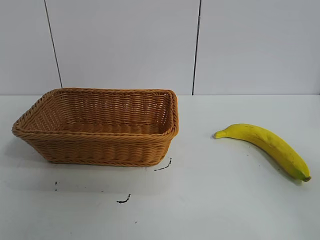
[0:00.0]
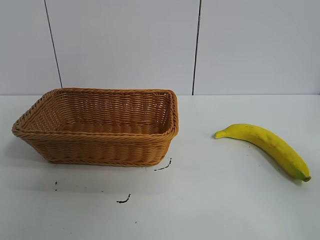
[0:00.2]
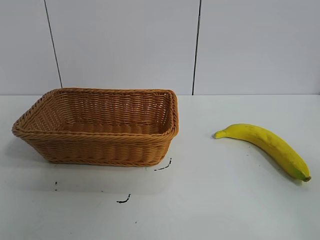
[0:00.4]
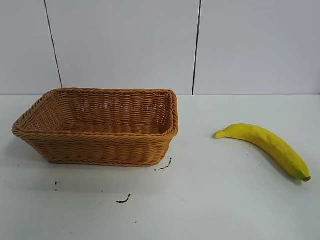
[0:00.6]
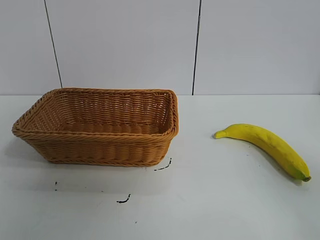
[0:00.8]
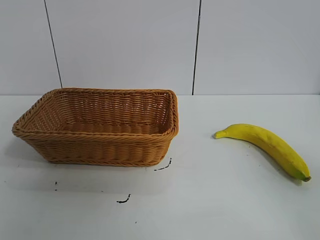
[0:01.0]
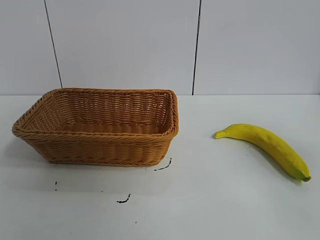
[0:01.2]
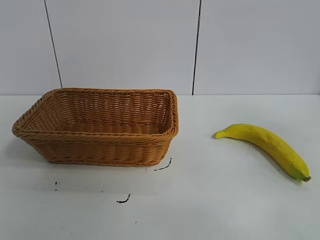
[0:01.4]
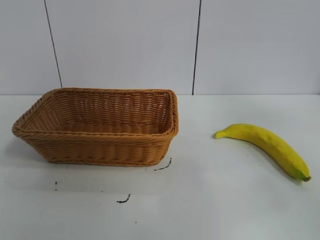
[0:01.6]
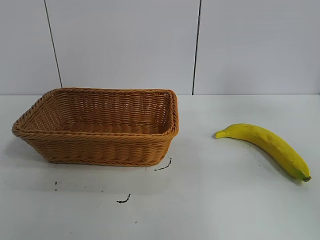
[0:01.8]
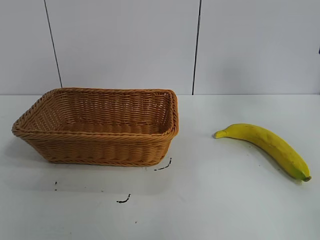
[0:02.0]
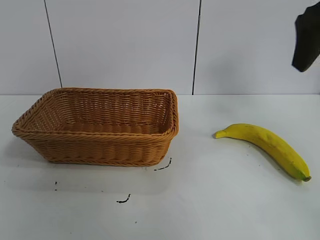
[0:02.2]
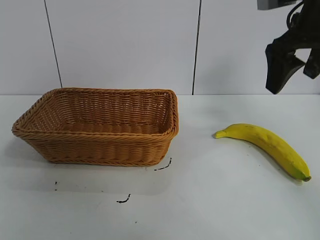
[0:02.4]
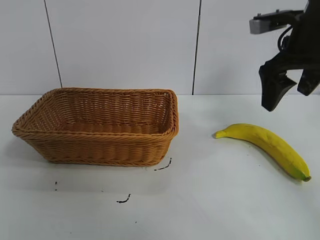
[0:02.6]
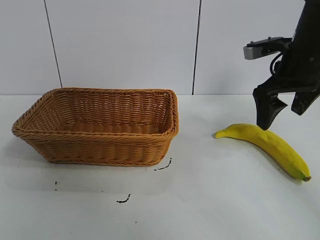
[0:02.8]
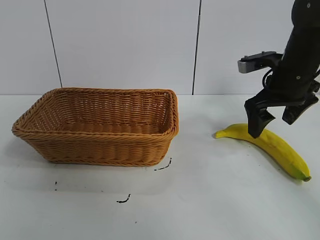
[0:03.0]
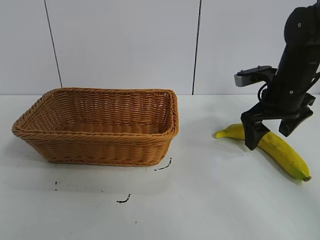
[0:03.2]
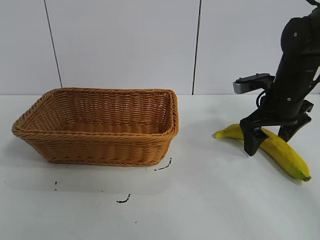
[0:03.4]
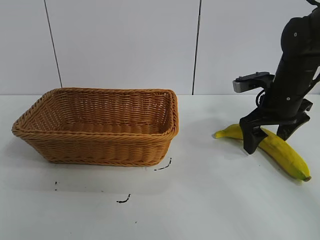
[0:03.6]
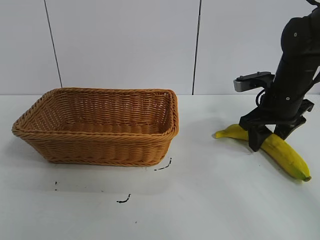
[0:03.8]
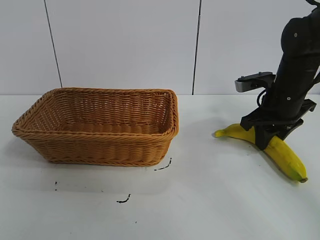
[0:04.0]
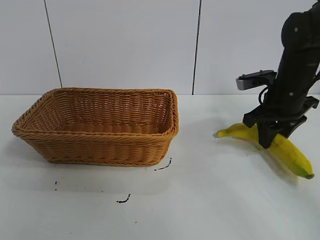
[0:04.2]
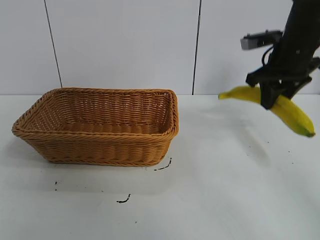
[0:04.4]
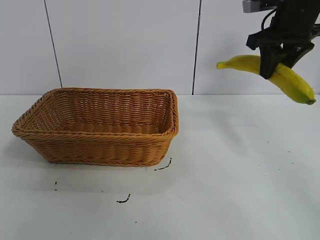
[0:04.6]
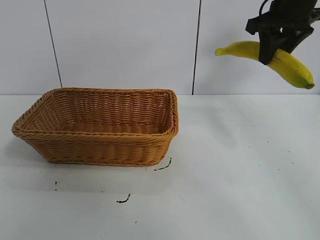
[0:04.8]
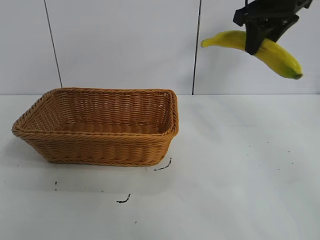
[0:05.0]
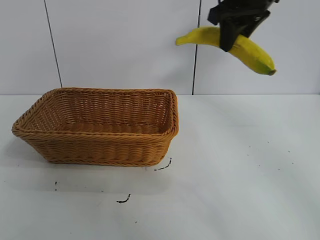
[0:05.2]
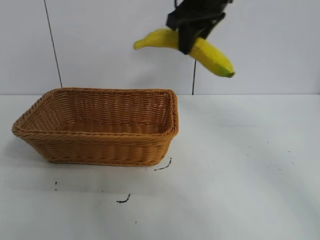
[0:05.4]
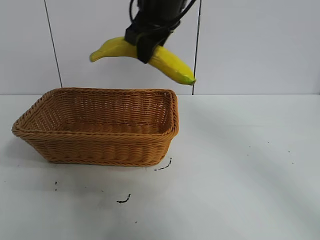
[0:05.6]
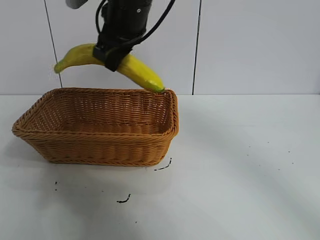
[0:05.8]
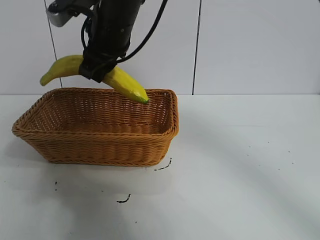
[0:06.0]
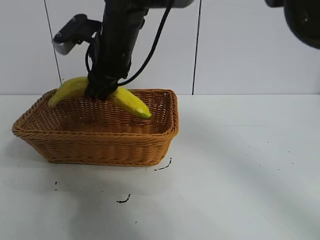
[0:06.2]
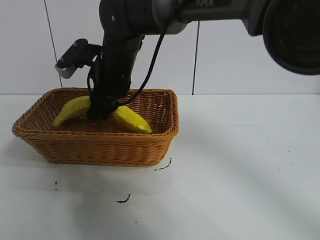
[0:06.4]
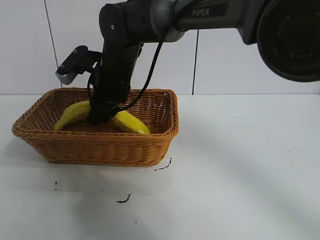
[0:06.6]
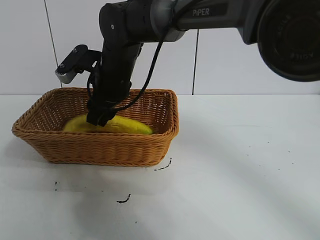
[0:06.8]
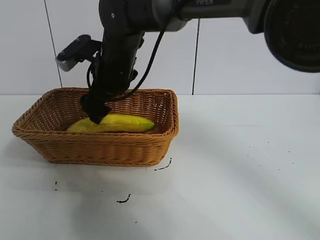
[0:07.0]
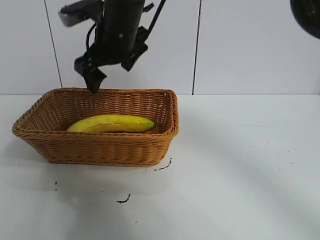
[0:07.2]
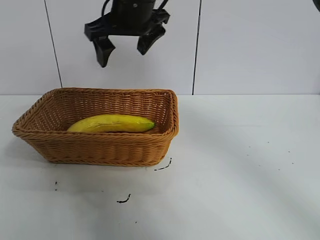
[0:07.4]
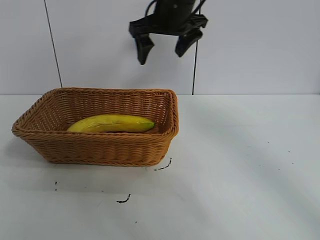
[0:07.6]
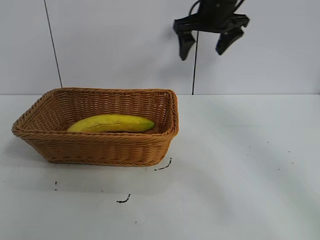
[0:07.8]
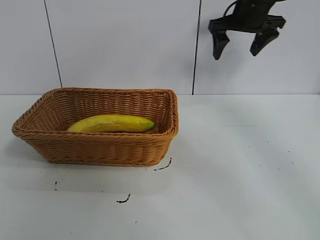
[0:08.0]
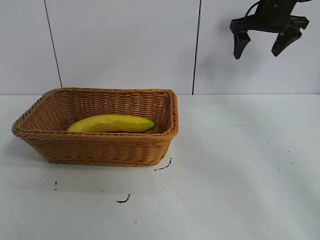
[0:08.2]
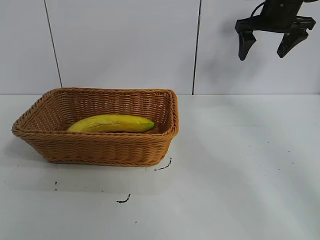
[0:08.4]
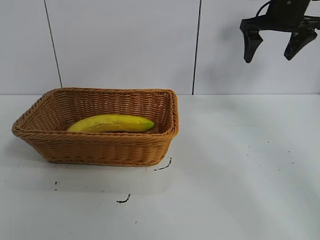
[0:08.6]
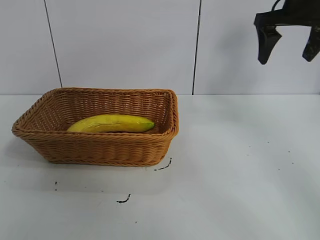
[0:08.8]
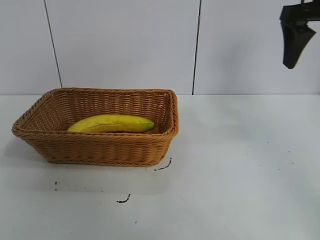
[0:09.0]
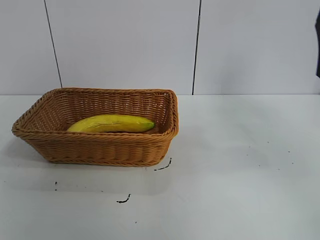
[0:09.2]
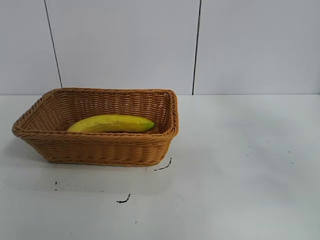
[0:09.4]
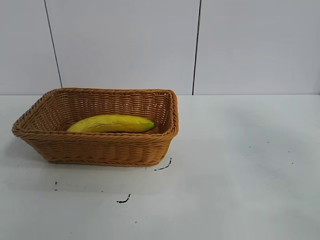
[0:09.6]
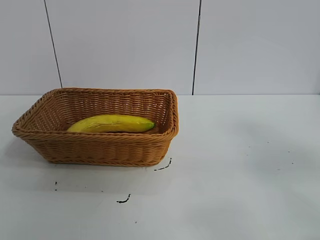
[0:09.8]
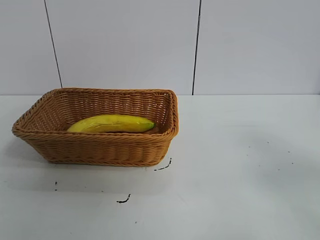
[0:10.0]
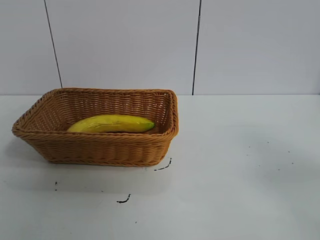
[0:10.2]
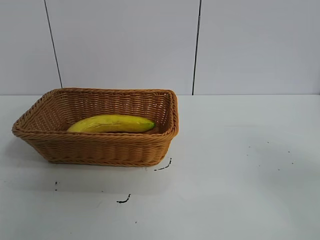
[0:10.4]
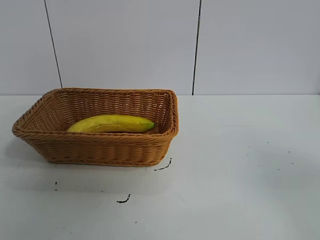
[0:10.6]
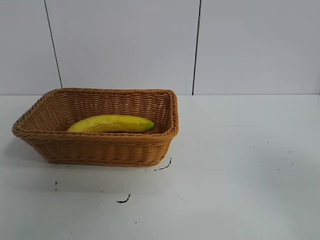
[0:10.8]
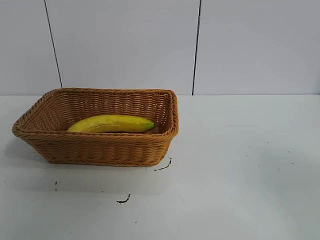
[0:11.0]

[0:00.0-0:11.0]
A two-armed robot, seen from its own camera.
Task of the whole recording: pick up the banana and put it into the basket.
Step, 0:01.0 to 0:04.0: Grasp the banana with right gripper.
Step, 0:04.2 to 0:06.8: Place the banana in the basket with right gripper.

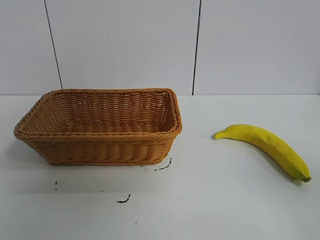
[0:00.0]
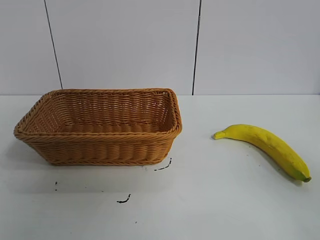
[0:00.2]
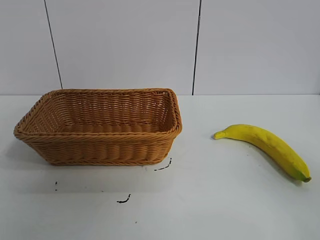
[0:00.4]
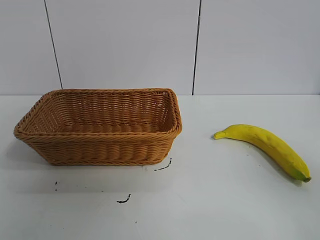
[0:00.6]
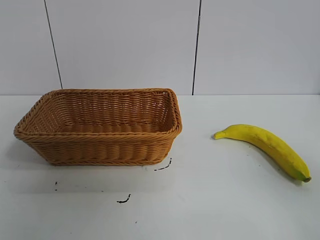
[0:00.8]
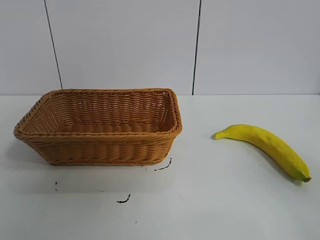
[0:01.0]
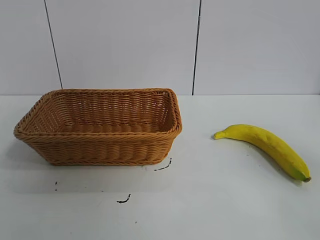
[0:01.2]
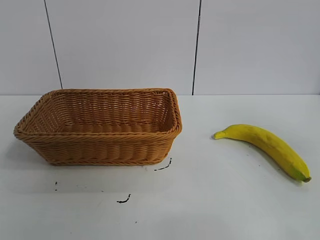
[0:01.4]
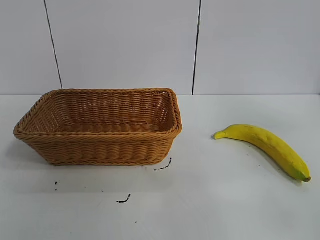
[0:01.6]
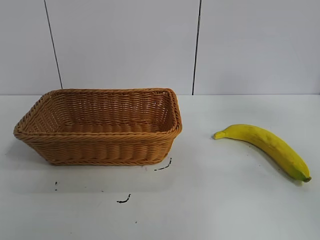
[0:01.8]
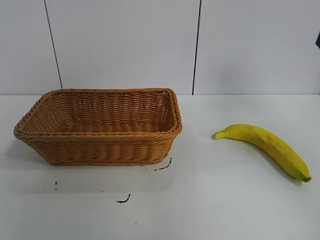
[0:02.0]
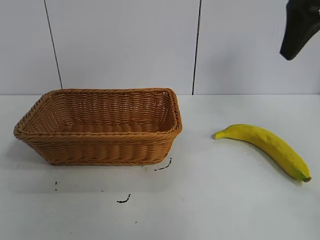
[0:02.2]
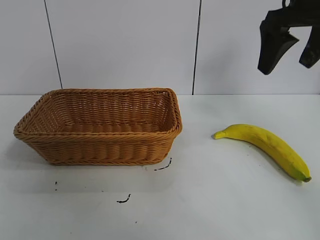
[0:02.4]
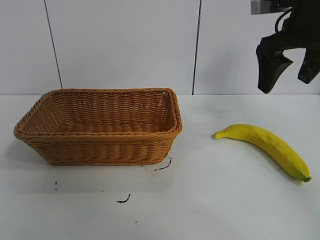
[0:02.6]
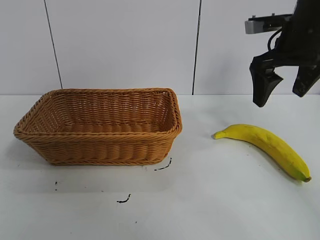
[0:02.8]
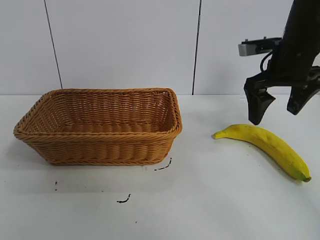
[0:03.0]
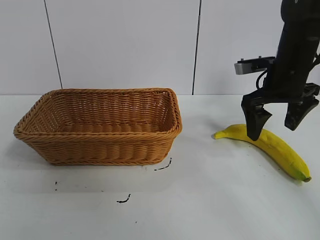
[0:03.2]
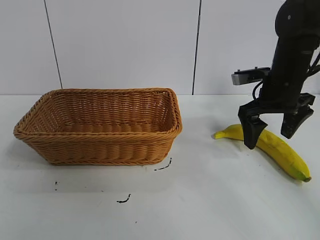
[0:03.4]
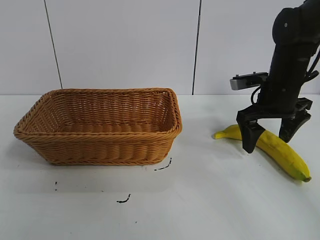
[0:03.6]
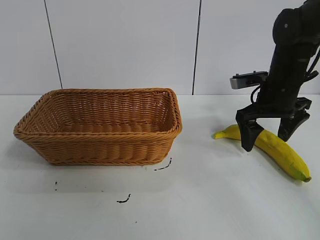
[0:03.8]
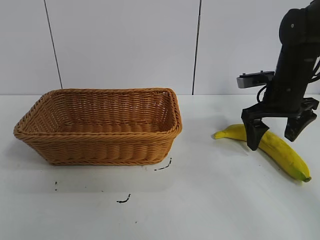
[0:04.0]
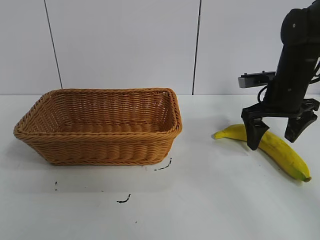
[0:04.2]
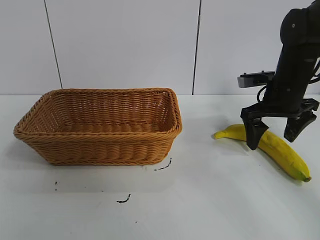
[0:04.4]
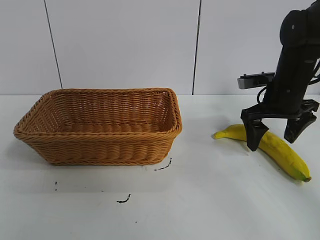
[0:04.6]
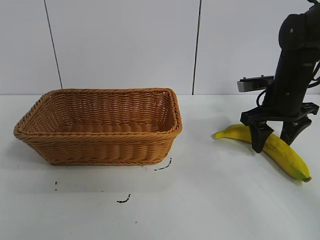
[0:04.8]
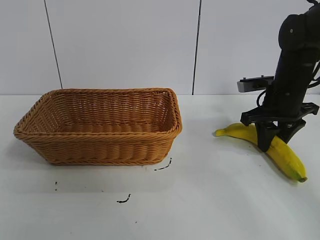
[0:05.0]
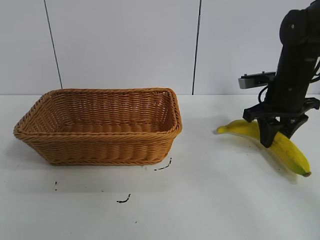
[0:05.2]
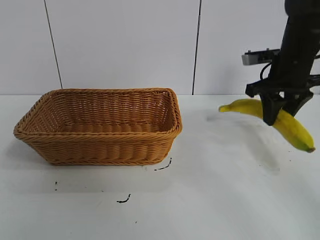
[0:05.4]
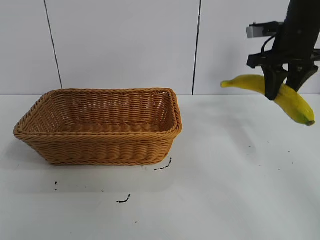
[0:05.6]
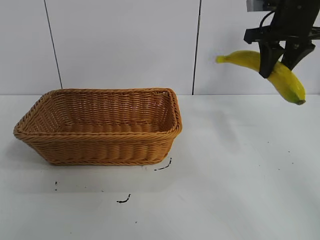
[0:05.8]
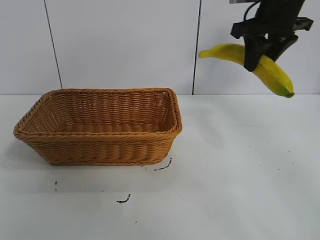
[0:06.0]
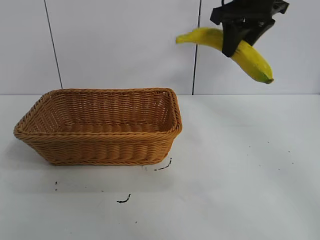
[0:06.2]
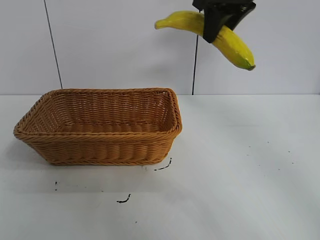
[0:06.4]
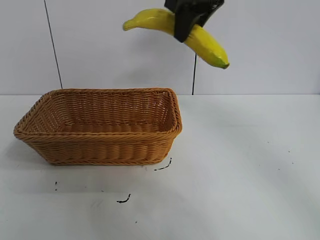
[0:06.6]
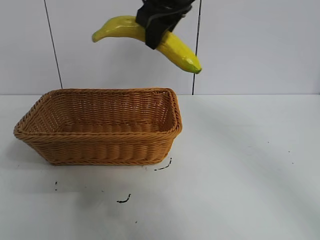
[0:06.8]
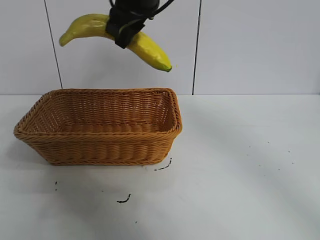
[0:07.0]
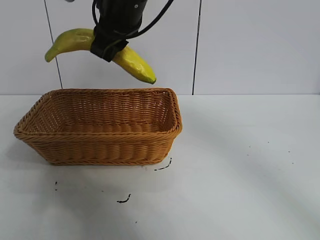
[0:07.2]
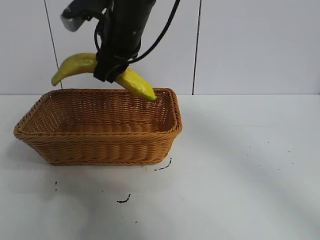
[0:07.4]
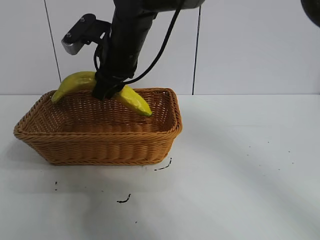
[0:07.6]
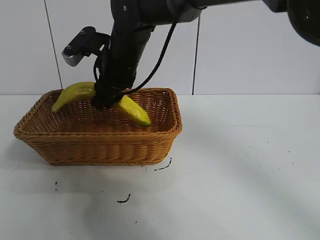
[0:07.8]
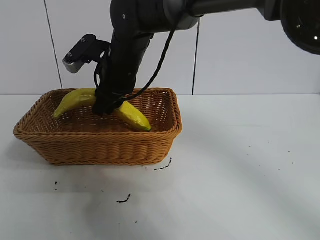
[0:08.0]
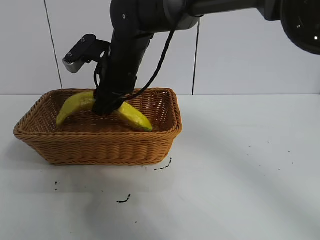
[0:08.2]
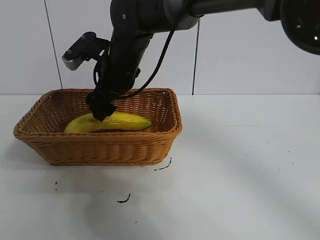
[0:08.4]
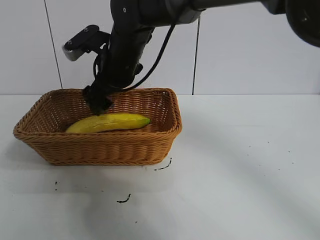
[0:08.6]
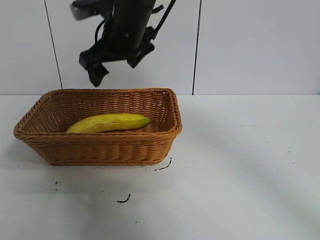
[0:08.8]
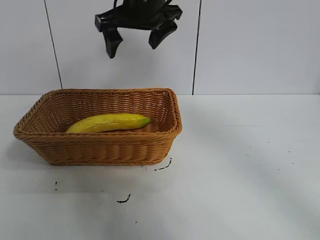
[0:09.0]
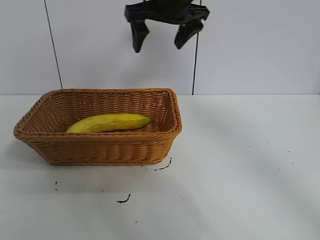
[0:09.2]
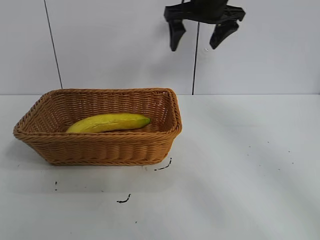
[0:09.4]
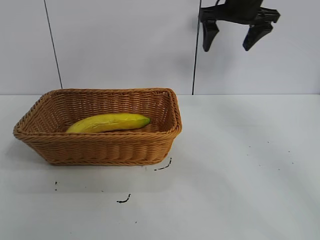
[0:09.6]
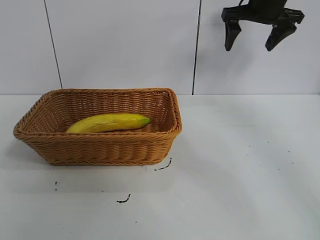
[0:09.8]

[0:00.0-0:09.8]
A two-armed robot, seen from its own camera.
Task of the whole recording: pick up the banana and put it into the basket.
Step, 0:00.8 to 0:04.8: Grasp the banana with right gripper.
Step, 0:05.0 to 0:08.4: Place the banana in the basket with right gripper.
